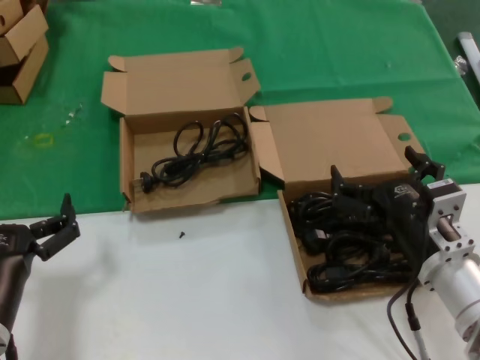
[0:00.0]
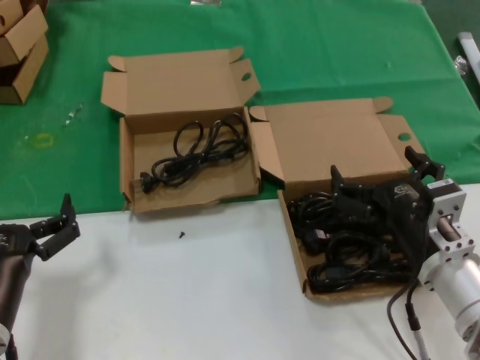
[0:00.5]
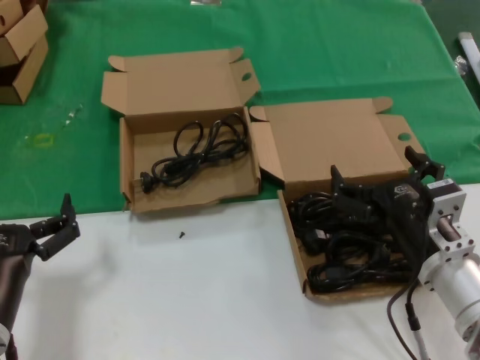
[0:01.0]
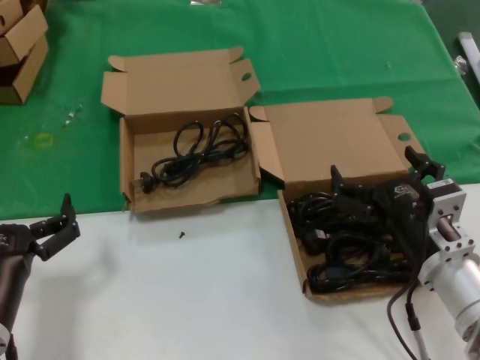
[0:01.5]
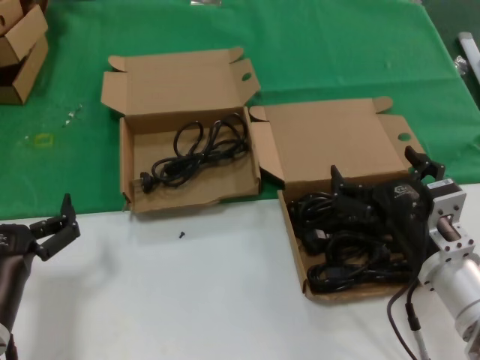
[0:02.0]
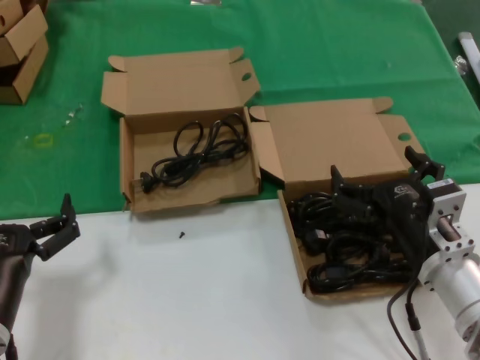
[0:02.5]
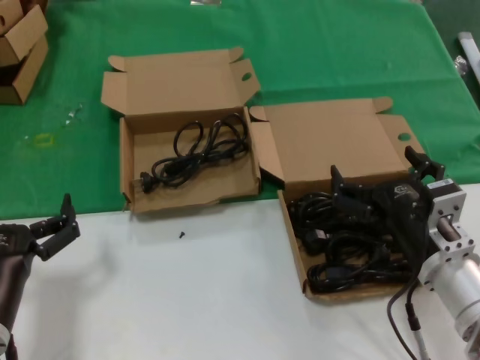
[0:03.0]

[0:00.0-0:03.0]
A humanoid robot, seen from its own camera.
Task of the whole recording: take the parts from the box containing them and put them into an empty box.
0:00.0 to 0:03.0: Both hands stay put.
